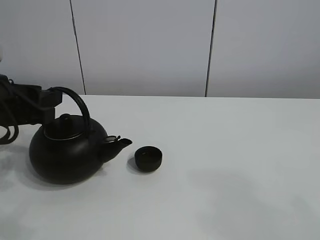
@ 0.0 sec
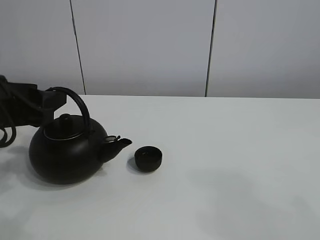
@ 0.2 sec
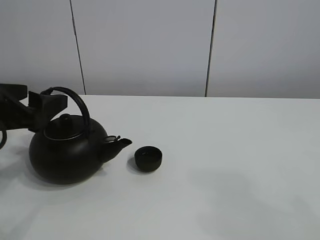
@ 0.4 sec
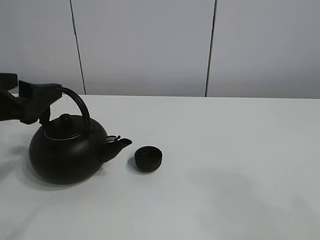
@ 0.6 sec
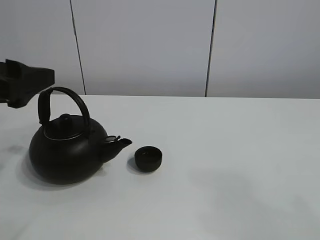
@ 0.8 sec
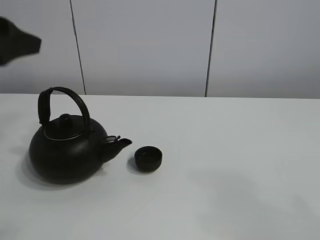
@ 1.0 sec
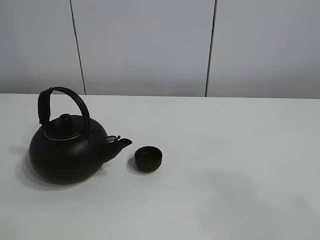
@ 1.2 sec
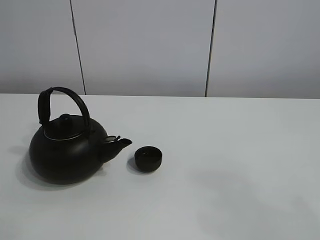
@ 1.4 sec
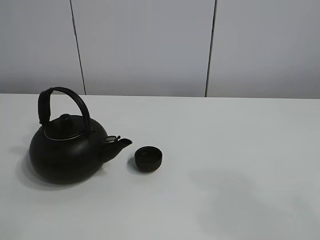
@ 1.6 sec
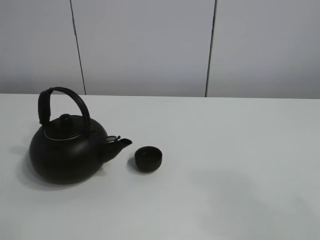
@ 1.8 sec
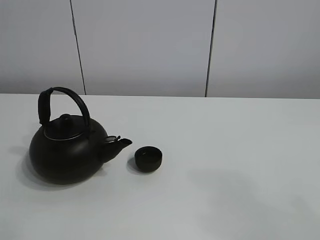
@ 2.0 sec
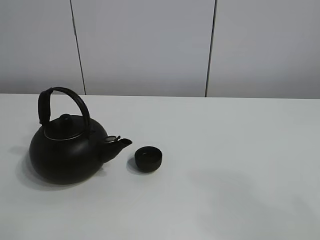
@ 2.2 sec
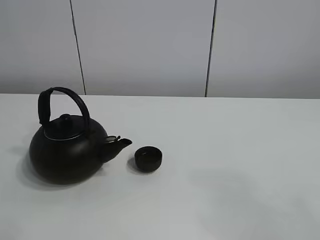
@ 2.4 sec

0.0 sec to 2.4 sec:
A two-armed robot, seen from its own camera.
Task of the whole recording: pour tea into the teacup.
0.0 sec to 1.2 sec: The left gripper shifts about 20 cm upward, and opens.
